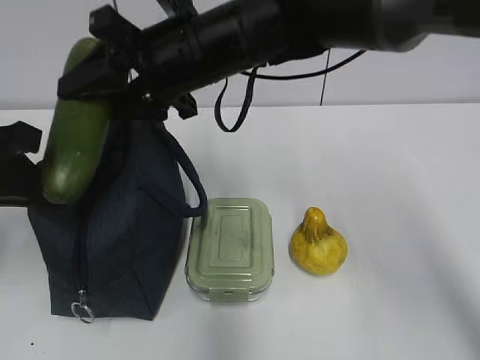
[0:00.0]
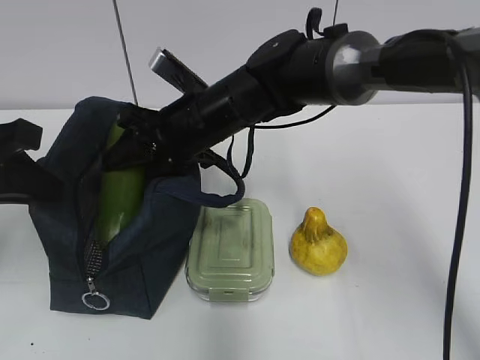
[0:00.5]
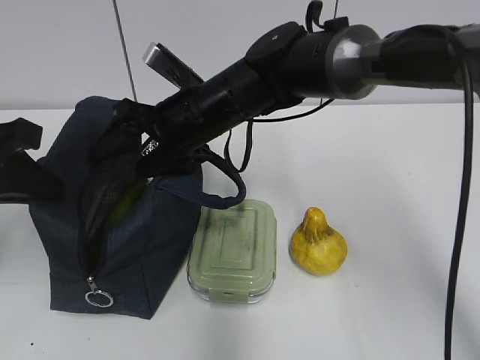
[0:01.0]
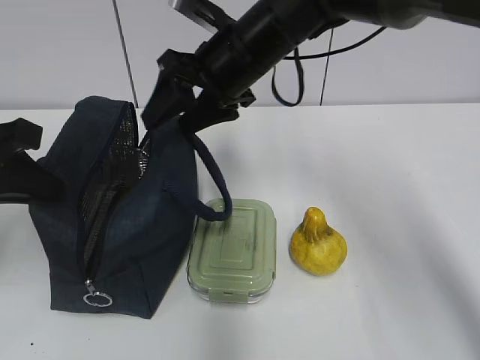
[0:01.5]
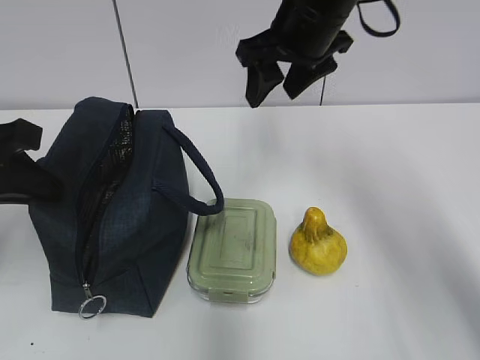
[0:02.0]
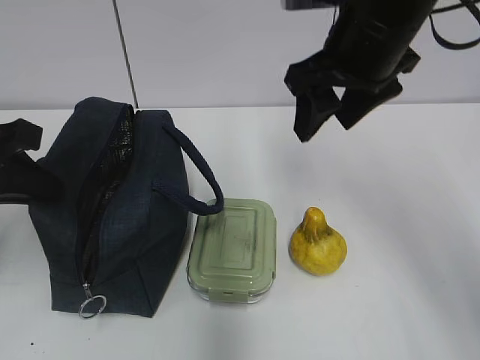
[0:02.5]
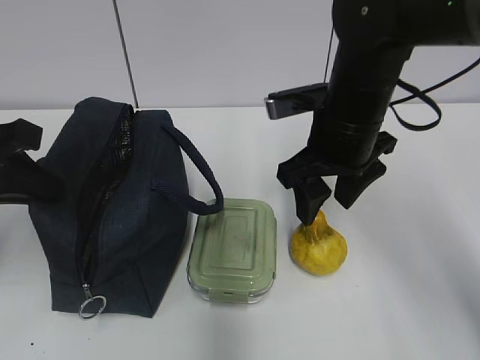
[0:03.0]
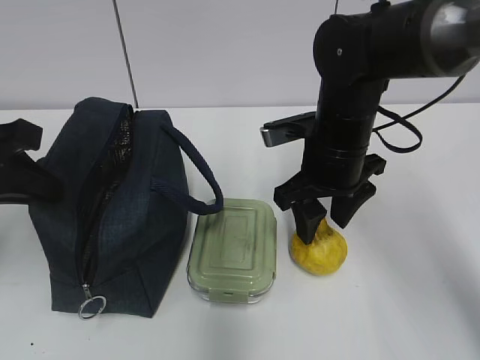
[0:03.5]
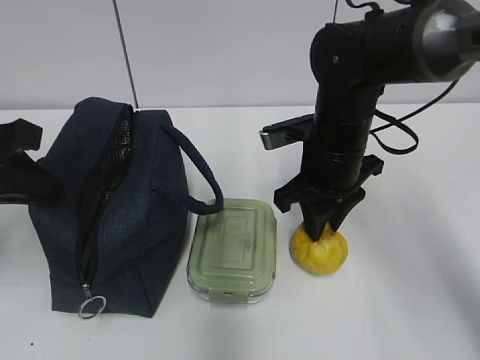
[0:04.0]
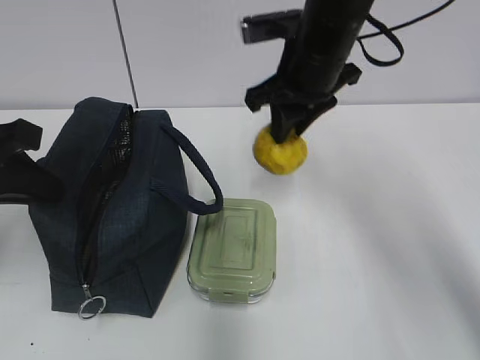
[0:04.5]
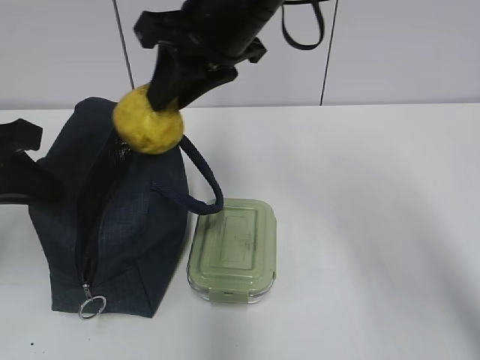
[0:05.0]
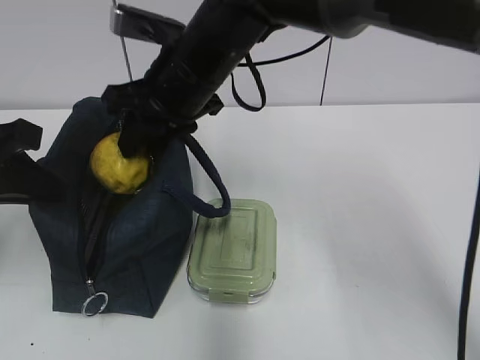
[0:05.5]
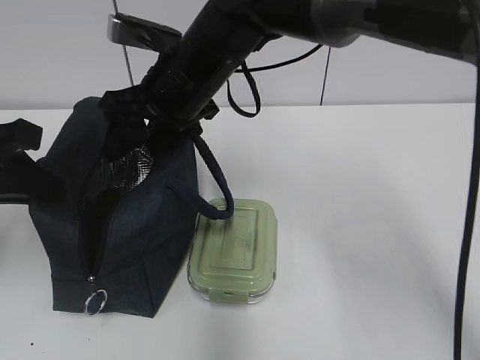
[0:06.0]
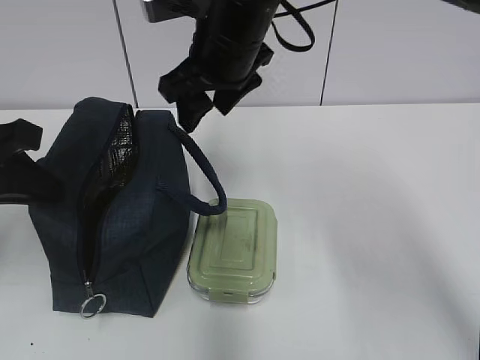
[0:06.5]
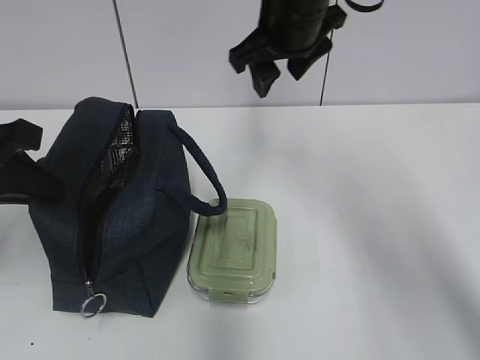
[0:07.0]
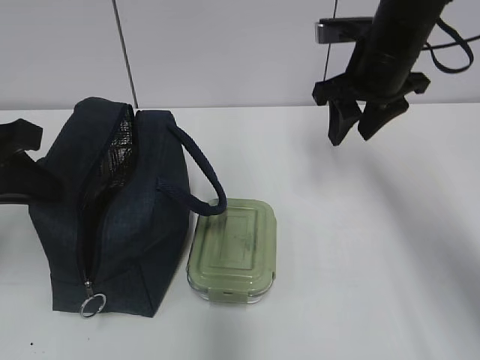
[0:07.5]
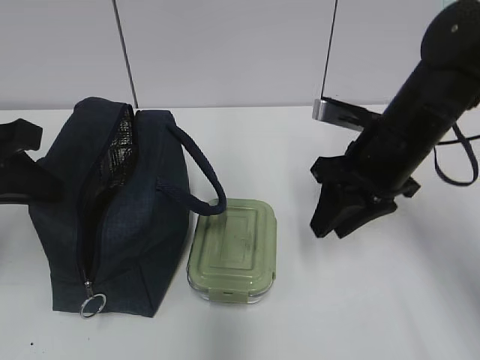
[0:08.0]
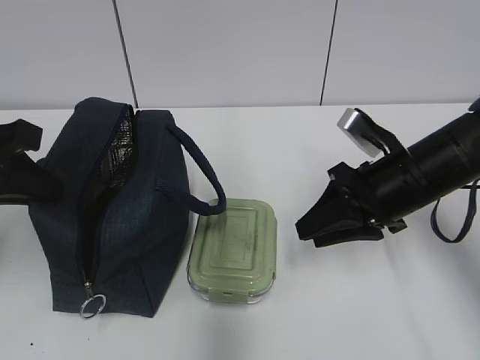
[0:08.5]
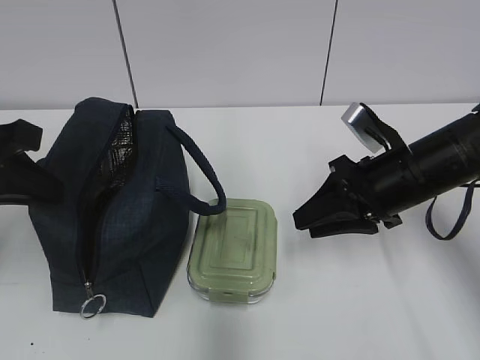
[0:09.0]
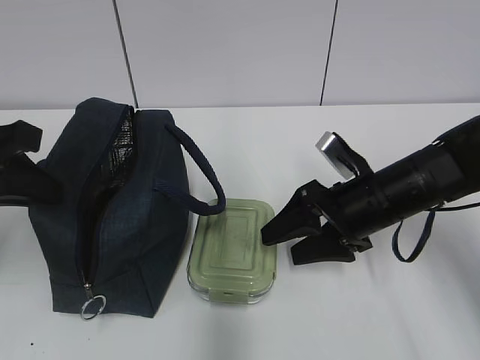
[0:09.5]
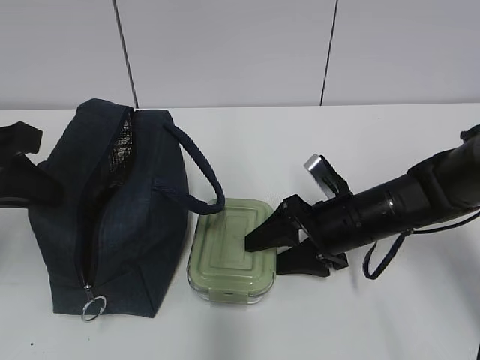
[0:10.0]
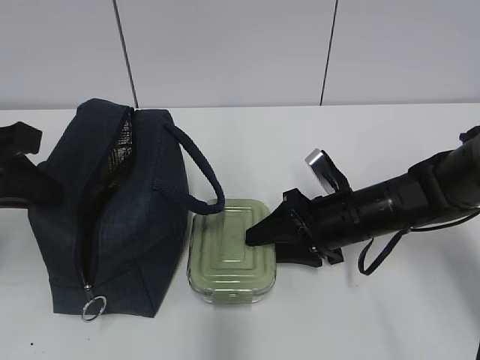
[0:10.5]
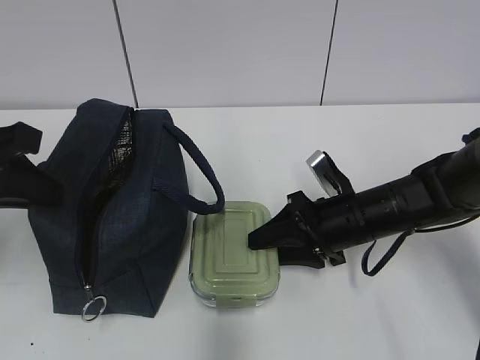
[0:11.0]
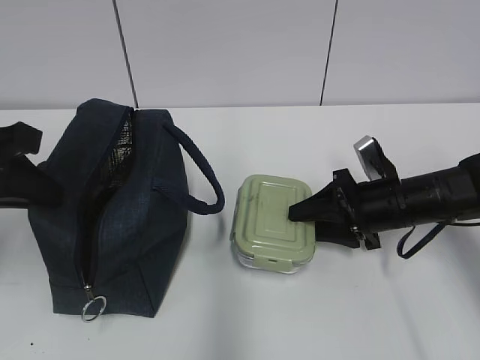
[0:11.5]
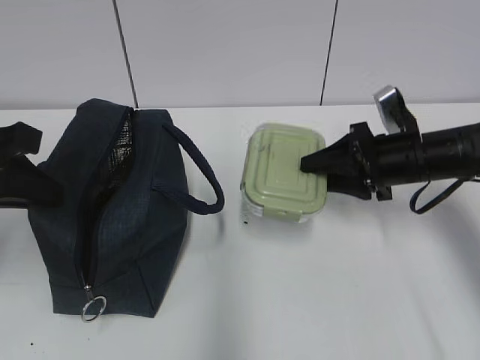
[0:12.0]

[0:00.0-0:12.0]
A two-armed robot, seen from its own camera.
Step, 0:00.5 to 0:01.0: Place it into the bag with your right hand.
Step, 0:01.5 to 0:03.5: Grab the pear with your right hand.
Step, 0:04.0 to 0:05.5: Place it into the bag with your right hand.
Step, 0:06.0 to 0:10.5: Grab the lunch box with your right hand.
0:00.0 to 0:02.0: The right gripper travels to the right by about 10 cm.
0:02.0 to 0:04.0: The right gripper travels downward by roughly 15 cm, and closes.
0:04.0 to 0:06.0: The right gripper travels to the left and upward by some 15 cm, and opens up.
0:06.0 to 0:08.0: The right gripper shifts about 20 cm to the right, and closes.
0:08.0 to 0:10.0: The right gripper travels downward by approximately 10 cm, and opens its fingers.
0:10.0 to 0:12.0: The right gripper heads to the right and upward, covering some 10 cm, and closes.

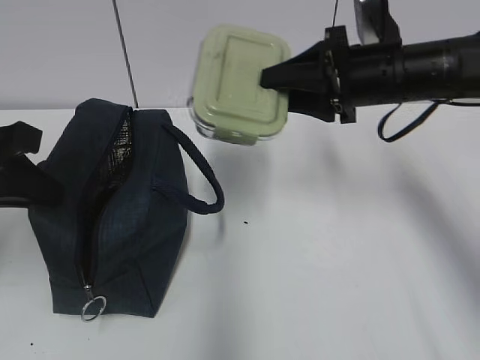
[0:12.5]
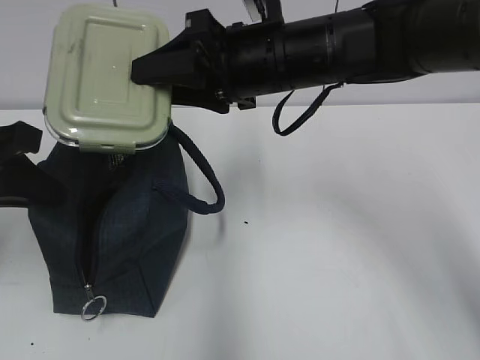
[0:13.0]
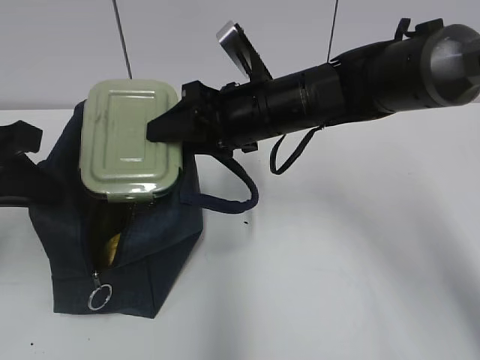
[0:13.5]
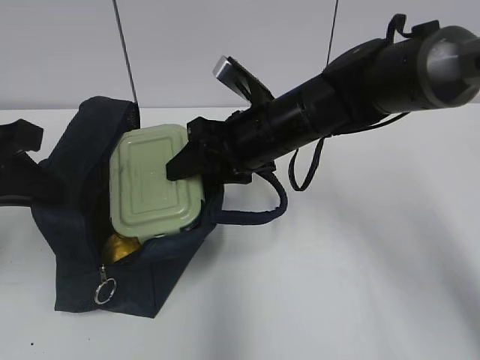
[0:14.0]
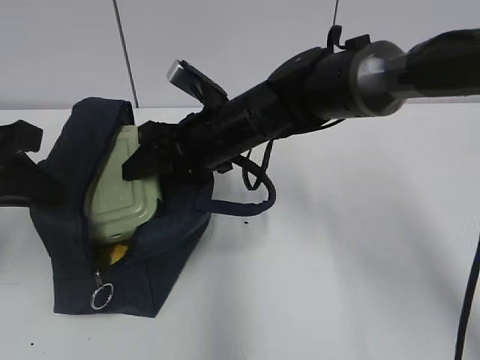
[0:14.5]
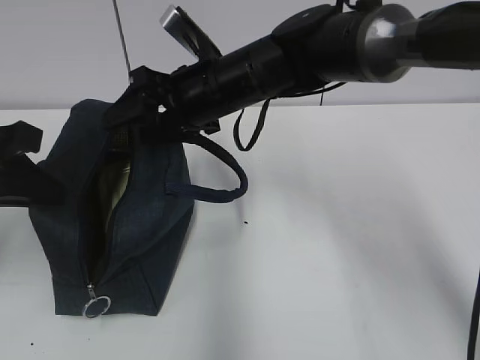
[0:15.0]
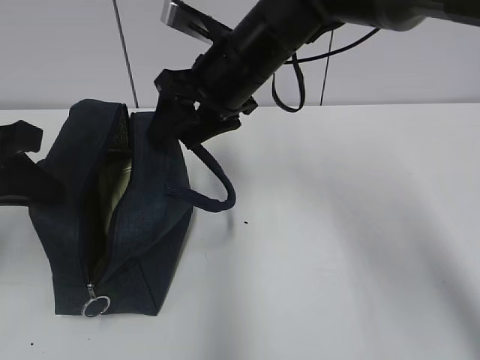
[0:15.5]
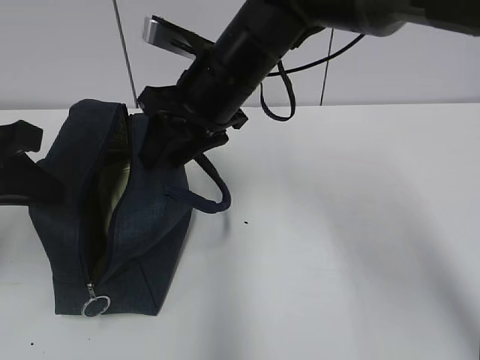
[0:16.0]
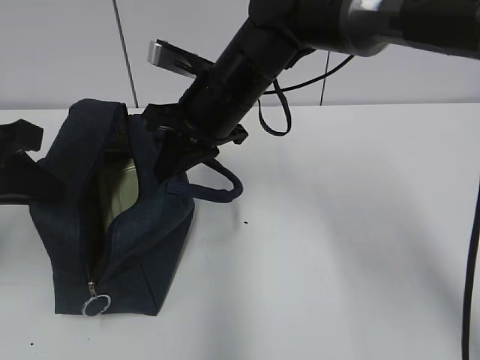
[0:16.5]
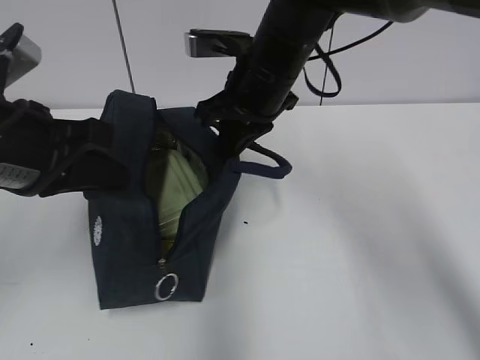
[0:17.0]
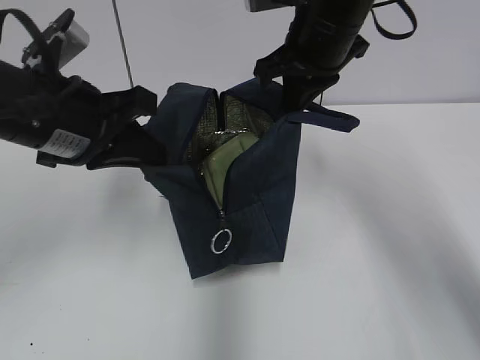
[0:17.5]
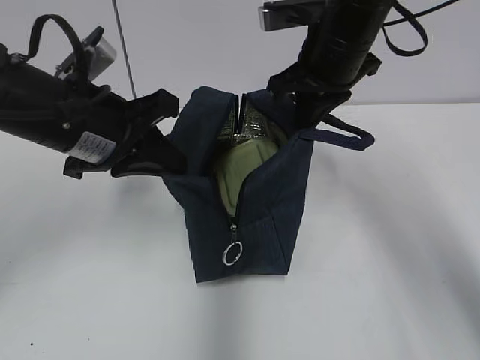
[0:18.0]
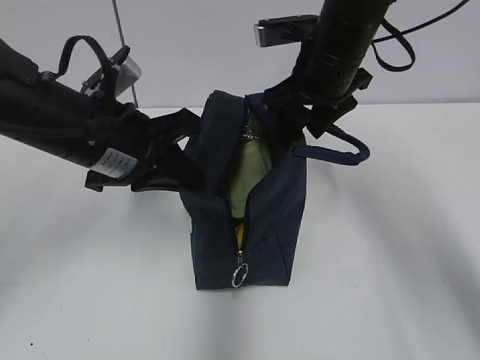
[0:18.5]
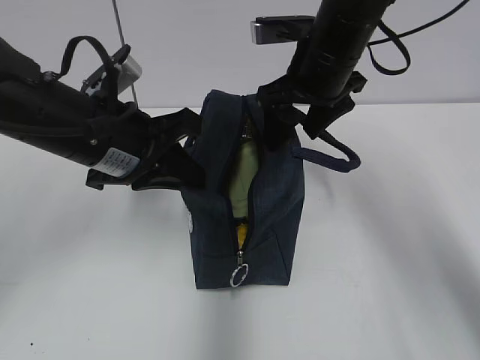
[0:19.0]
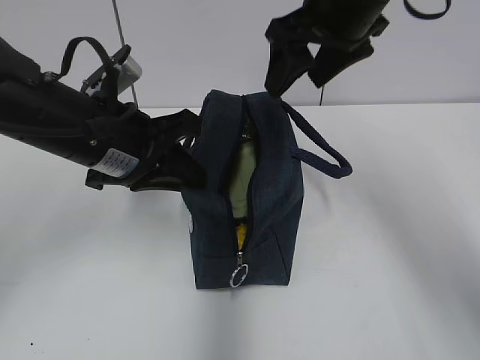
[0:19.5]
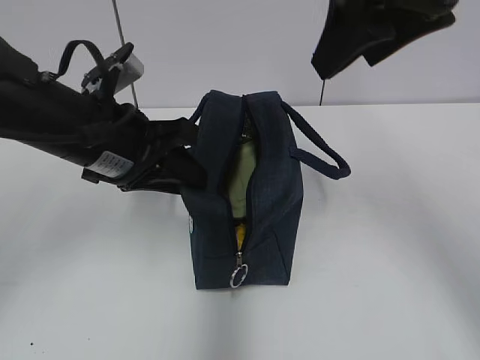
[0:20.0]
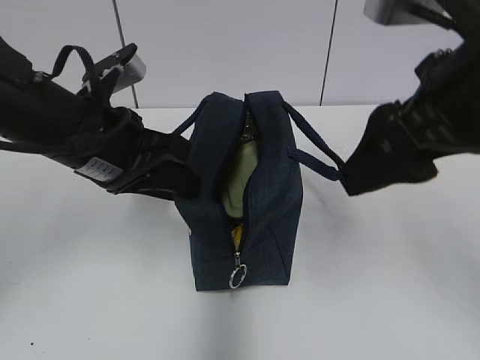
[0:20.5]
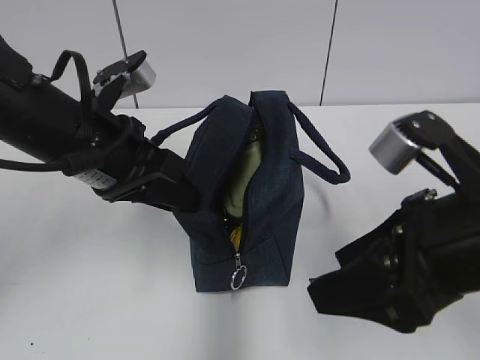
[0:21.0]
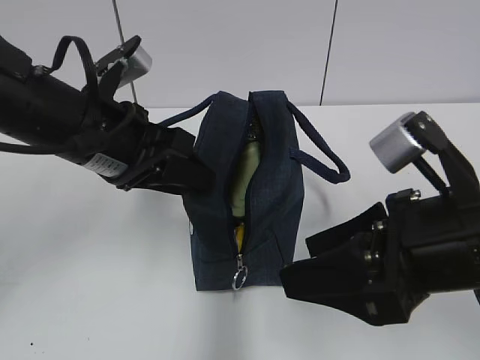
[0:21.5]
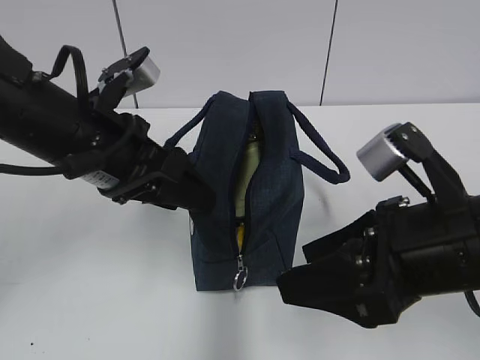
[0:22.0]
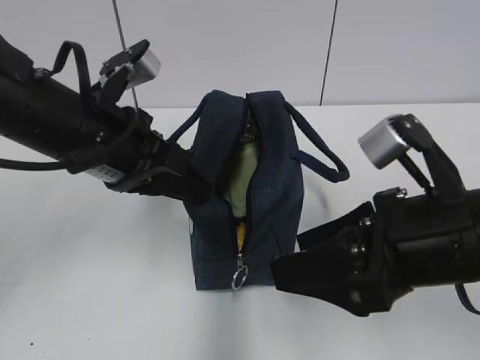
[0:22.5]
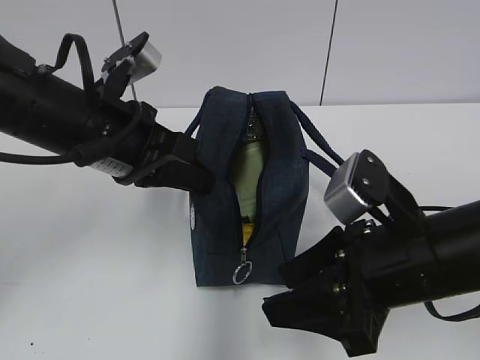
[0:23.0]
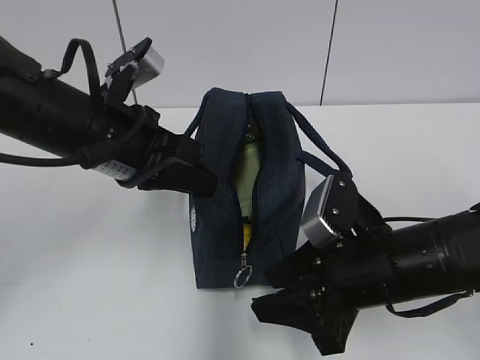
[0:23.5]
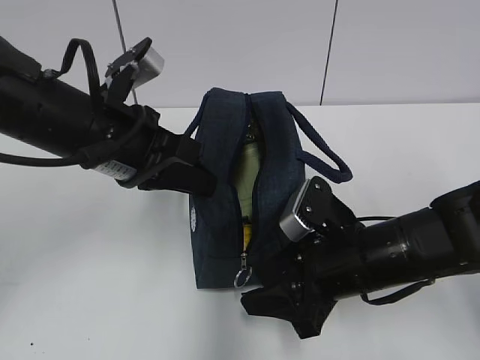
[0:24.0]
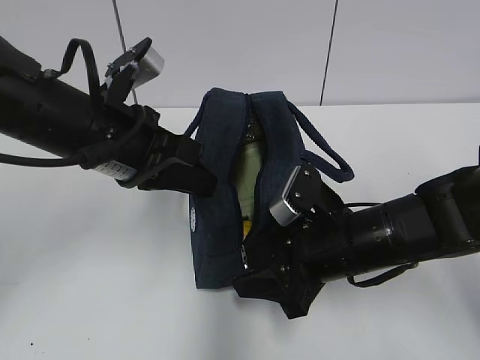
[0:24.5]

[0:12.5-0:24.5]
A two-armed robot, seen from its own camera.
Step, 0:15.0 to 0:16.0: Grab the lunch bag with your right hand.
Step, 0:17.0 to 0:18.5: Move the lunch bag to the right.
0:12.5 to 0:14.5: The right gripper travels to the left by about 15 cm.
0:14.5 to 0:16.5: The right gripper closes.
0:16.5 to 0:18.5: Both grippers move to the right, about 10 cm. The right gripper opens.
0:18.5 to 0:20.5: The right gripper goes about 20 cm backward; the left gripper opens up.
0:20.5 to 0:22.5: The left gripper opens, then closes again; the right gripper is displaced downward by approximately 10 cm.
0:22.5 to 0:24.5: The right gripper goes about 15 cm downward and forward. Meanwhile the left gripper closes its fingers.

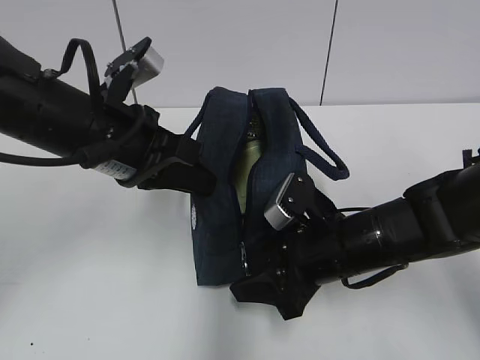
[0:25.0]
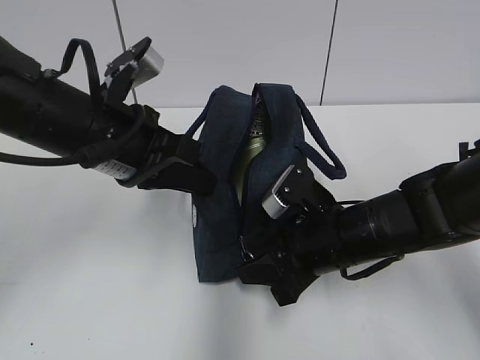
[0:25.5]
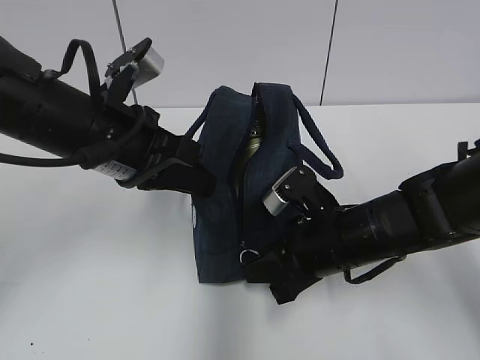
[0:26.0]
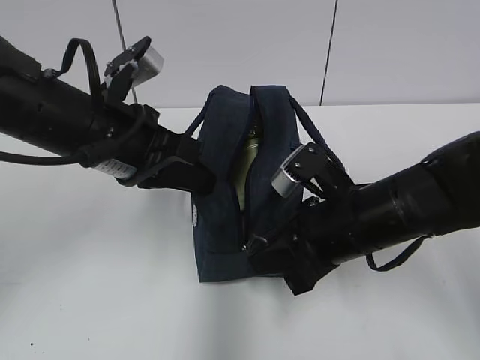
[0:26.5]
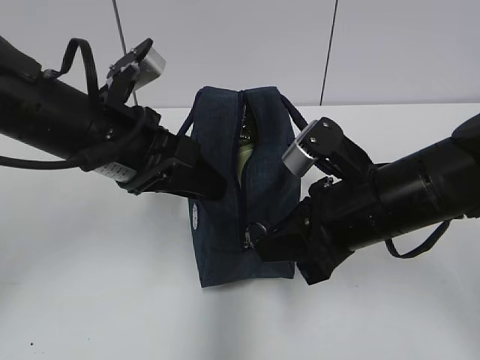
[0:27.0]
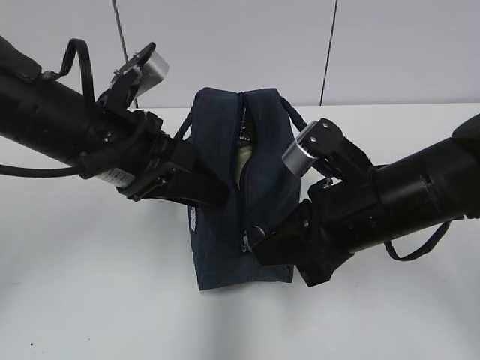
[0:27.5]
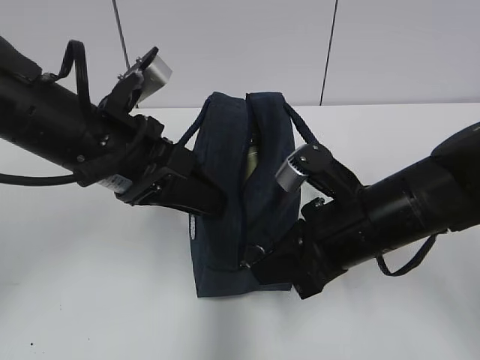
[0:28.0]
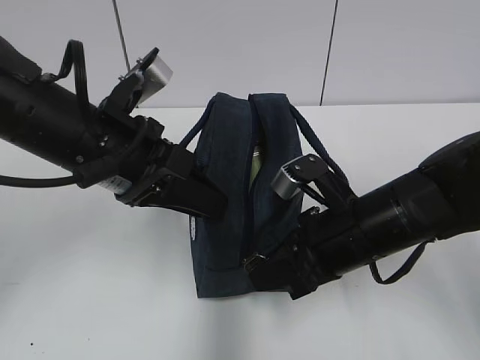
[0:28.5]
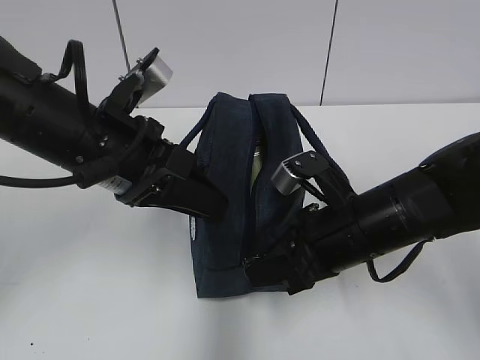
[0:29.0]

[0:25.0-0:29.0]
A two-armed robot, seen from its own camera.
0:25.0 to 0:27.0: The right gripper moves upward, about 10 cm, and closes its fingers, while the left gripper opens its fingers.
0:27.0 to 0:29.0: The grippers make only small movements.
